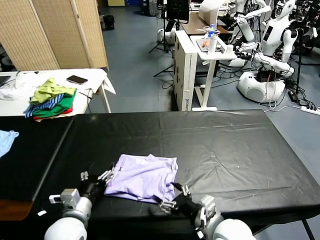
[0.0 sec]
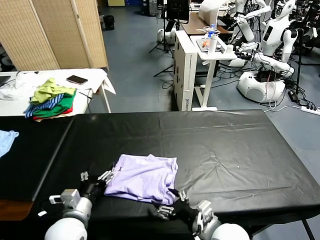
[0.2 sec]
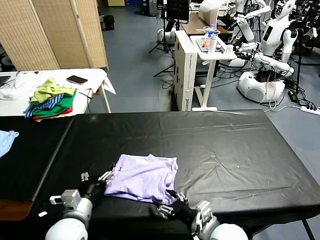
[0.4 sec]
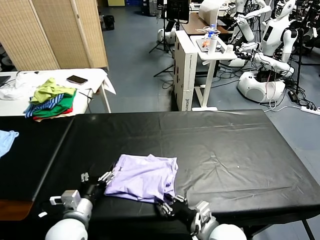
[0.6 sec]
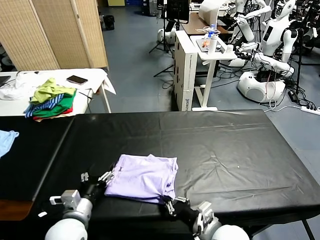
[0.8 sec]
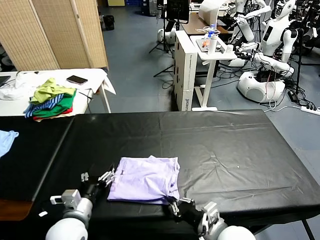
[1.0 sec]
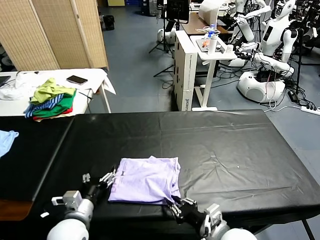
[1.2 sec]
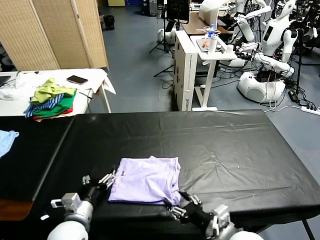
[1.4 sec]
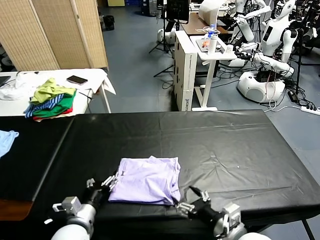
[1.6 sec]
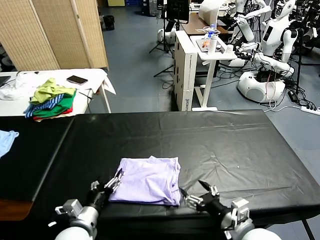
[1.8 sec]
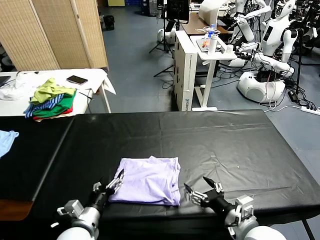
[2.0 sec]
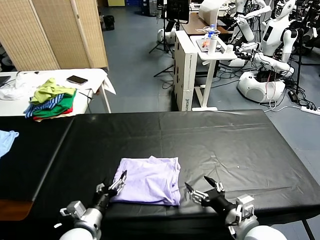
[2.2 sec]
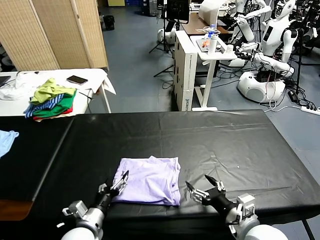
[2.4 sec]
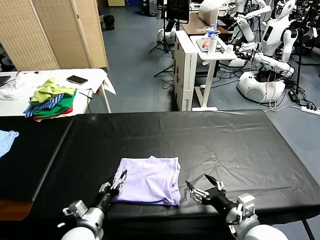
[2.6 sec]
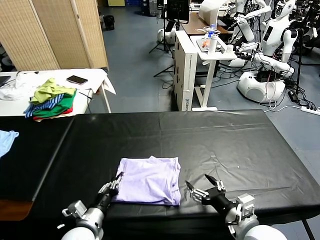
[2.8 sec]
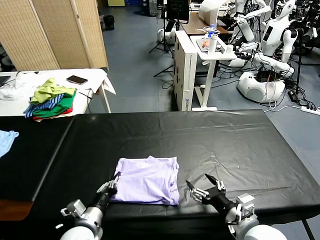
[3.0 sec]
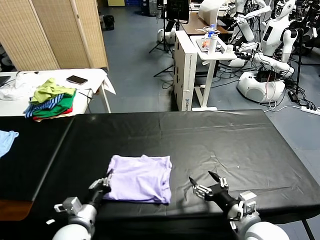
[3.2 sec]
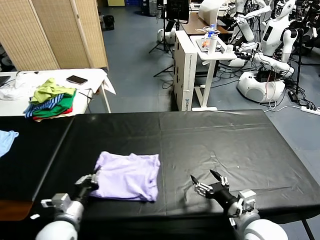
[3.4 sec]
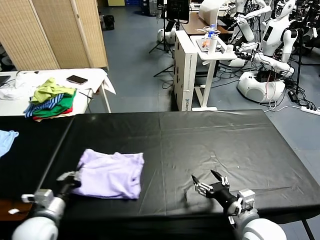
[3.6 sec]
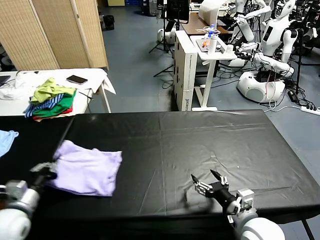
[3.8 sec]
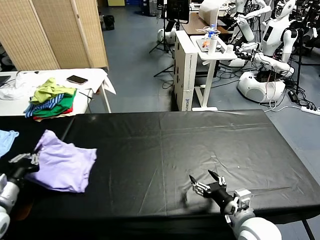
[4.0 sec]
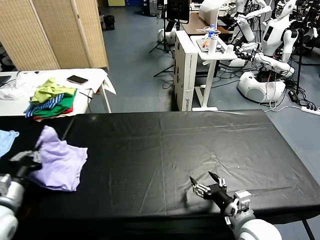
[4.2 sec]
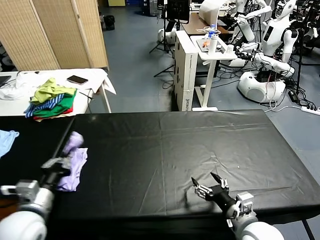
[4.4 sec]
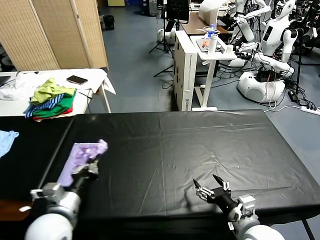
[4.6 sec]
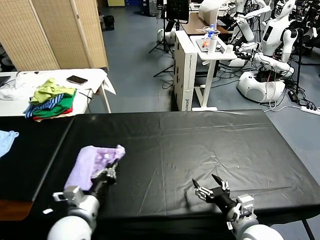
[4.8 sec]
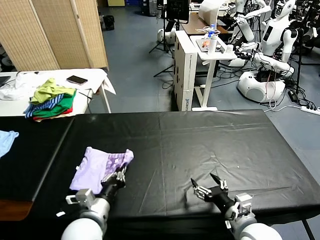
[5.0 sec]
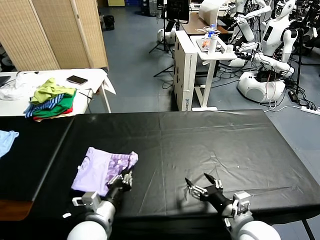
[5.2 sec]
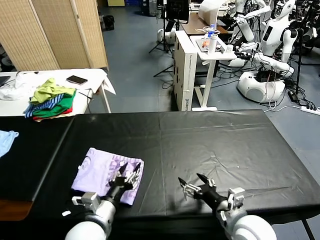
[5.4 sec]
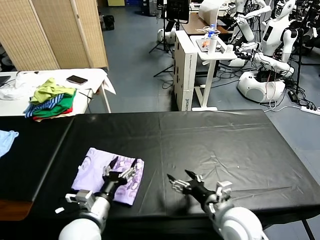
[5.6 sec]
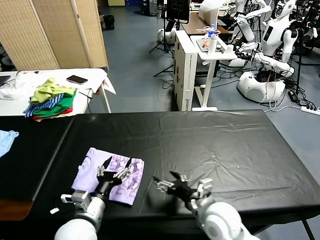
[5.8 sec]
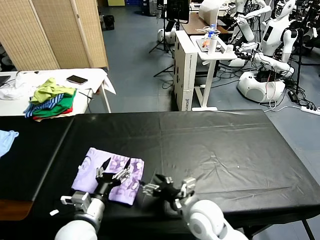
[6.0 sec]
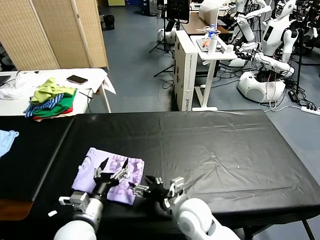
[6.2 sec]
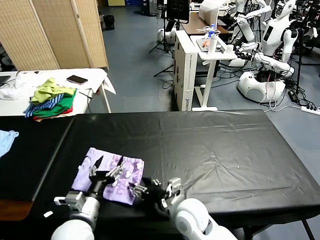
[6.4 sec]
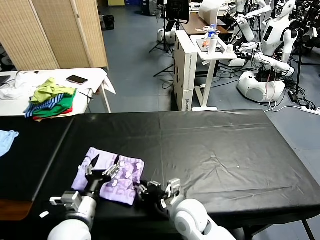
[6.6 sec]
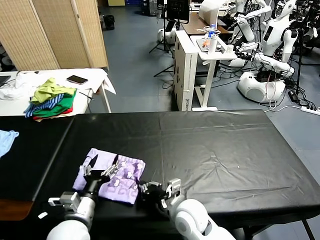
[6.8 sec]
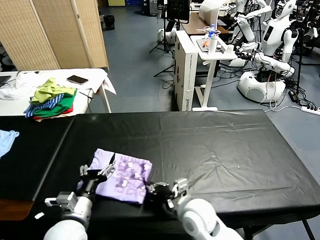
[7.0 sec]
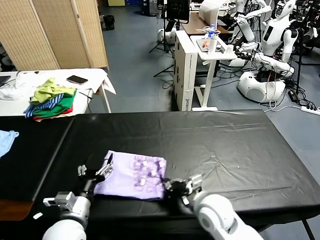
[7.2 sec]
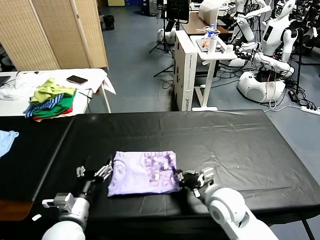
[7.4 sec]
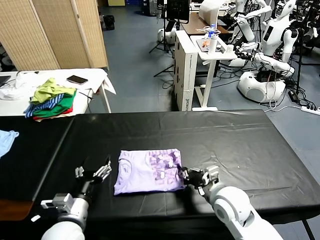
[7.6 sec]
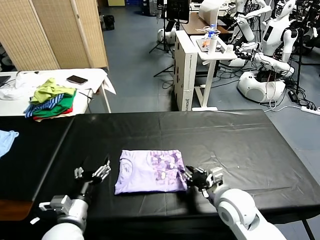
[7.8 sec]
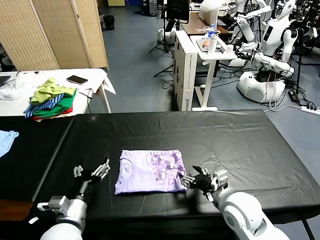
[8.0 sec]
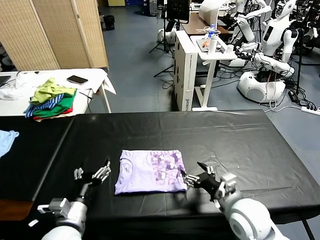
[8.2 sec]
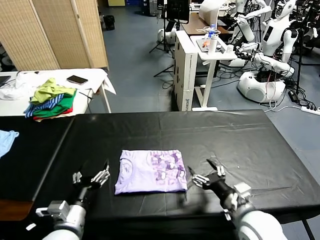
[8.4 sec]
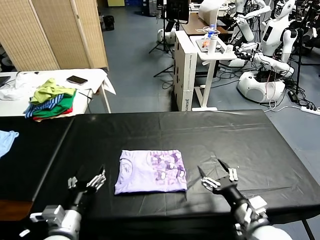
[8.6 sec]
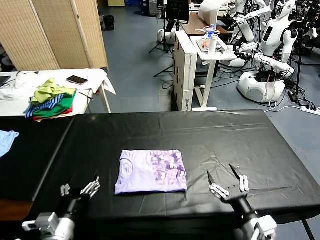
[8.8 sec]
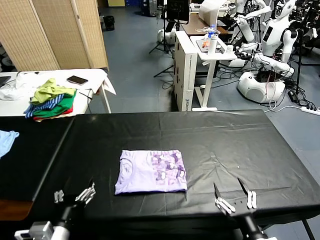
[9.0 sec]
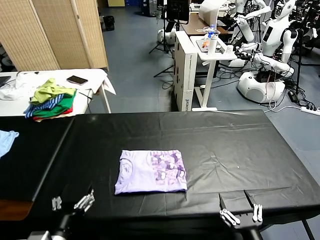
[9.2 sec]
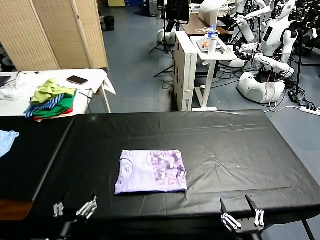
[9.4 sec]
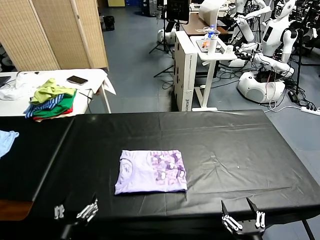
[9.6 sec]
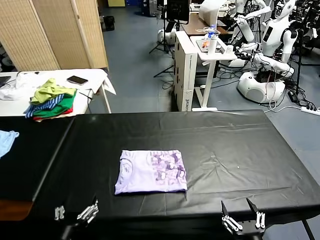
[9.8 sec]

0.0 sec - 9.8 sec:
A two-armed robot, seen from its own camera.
Task of the whole recording: fold and organize the clothes.
Step, 0.0 sec - 5.6 sec: Flip the folded clothes over with left gripper.
Step, 5.8 sec - 8.0 sec: Drag the clothes to the center of the table.
0.0 sec - 1.4 sec: The right gripper closes and opens again.
1.4 sec - 2.8 sec: The left gripper closes up.
2.8 sec - 4.2 sec: The left gripper heads upward and to the left, covering roughly 25 cm.
4.2 sec - 5.6 sec: The left gripper moves to the right and downward, approximately 20 cm, and opens its fingers.
5.6 sec - 7.0 sec: The right gripper moves to the left, about 10 cm, and closes.
7.0 sec - 8.4 sec: The right gripper shifts approximately 15 cm to the right and upward, and opens its fingers.
8.4 sec - 9.8 sec: The left gripper is displaced backward by about 10 cm; the right gripper travels backward by approximately 15 cm.

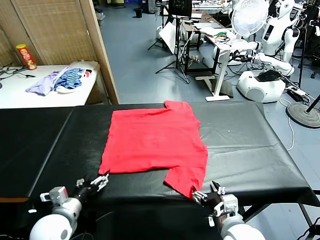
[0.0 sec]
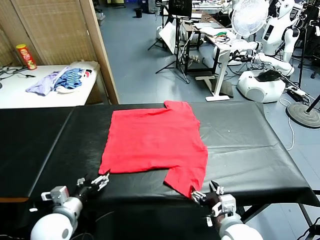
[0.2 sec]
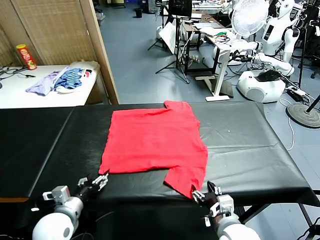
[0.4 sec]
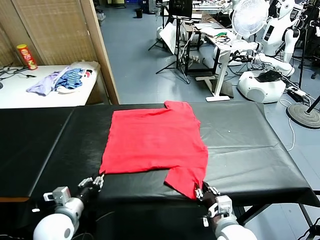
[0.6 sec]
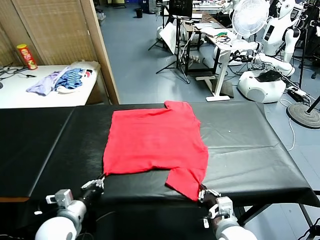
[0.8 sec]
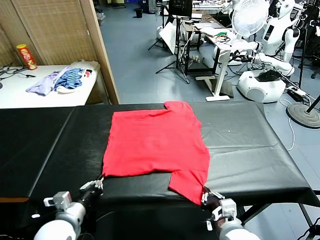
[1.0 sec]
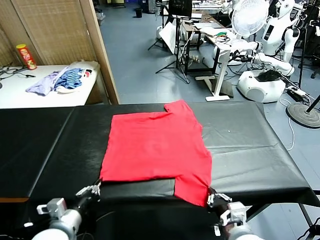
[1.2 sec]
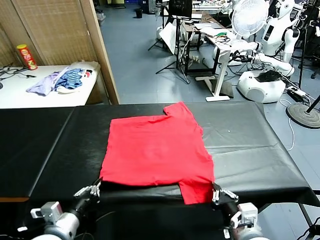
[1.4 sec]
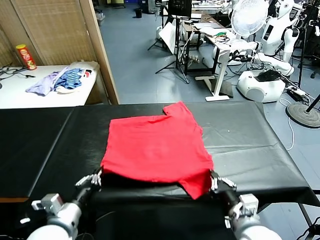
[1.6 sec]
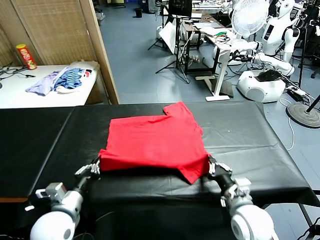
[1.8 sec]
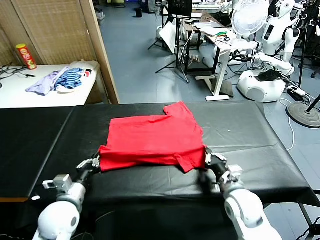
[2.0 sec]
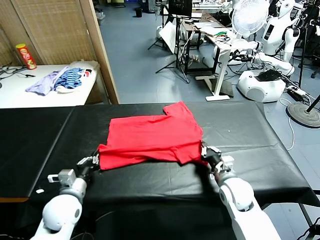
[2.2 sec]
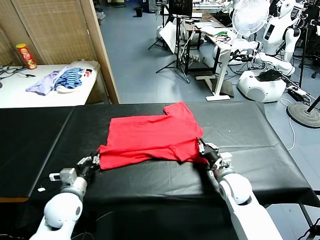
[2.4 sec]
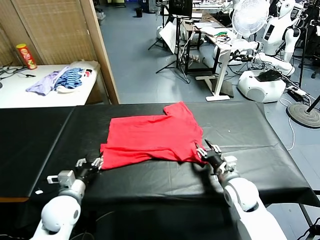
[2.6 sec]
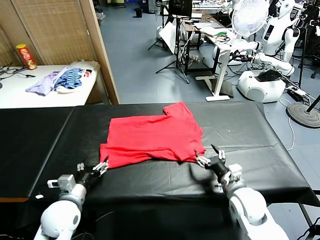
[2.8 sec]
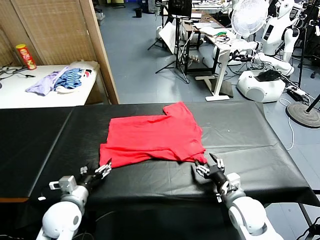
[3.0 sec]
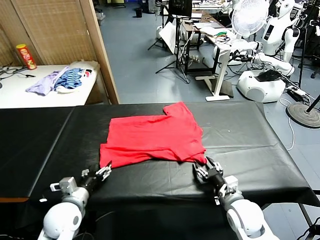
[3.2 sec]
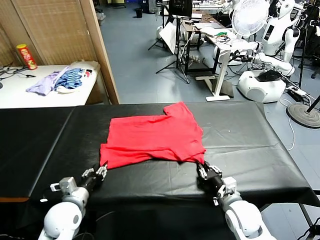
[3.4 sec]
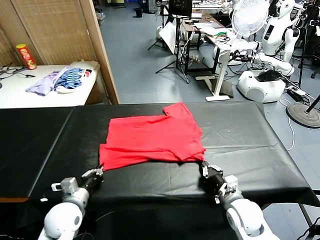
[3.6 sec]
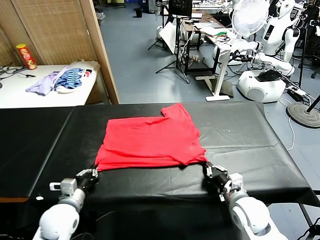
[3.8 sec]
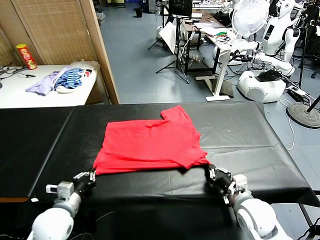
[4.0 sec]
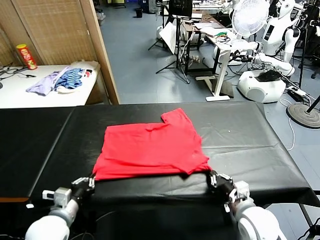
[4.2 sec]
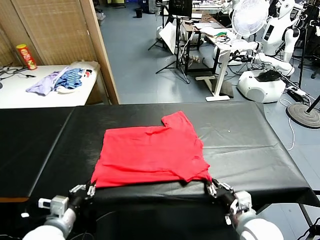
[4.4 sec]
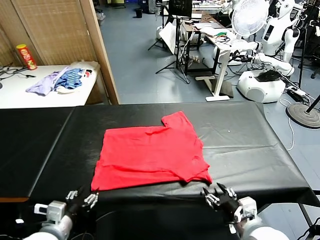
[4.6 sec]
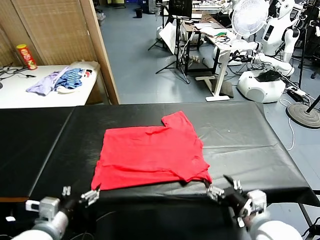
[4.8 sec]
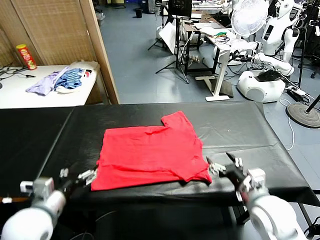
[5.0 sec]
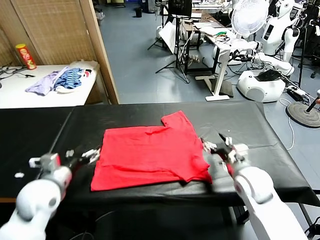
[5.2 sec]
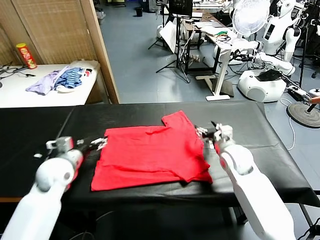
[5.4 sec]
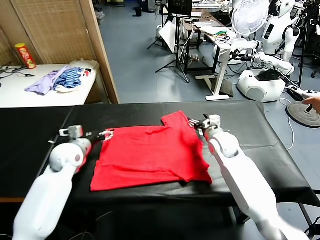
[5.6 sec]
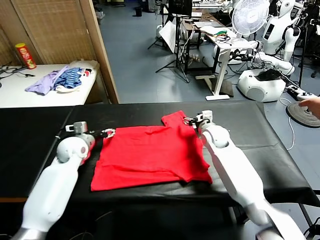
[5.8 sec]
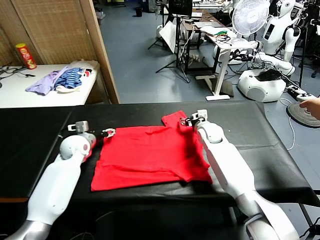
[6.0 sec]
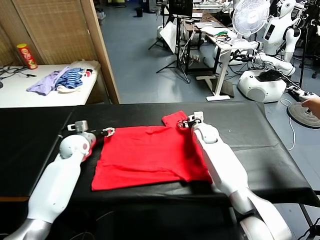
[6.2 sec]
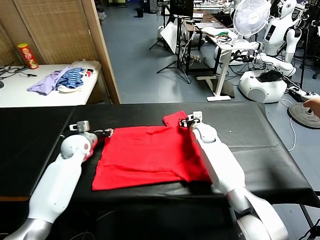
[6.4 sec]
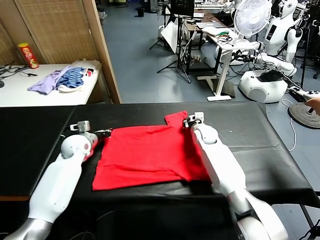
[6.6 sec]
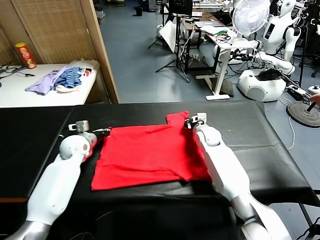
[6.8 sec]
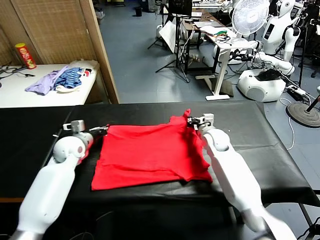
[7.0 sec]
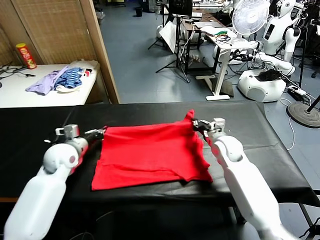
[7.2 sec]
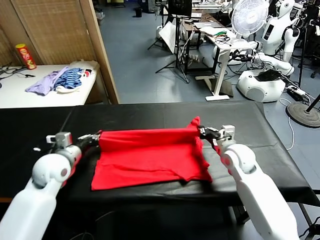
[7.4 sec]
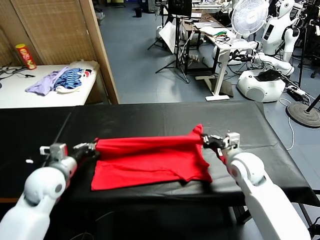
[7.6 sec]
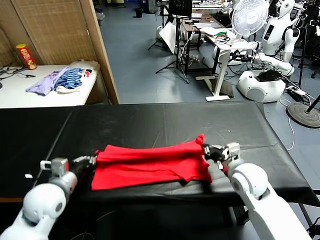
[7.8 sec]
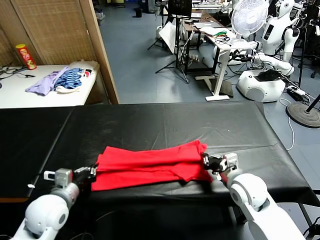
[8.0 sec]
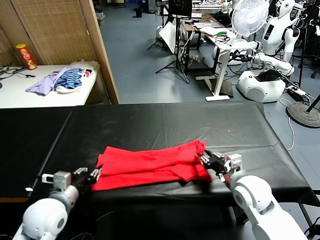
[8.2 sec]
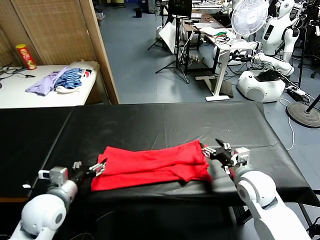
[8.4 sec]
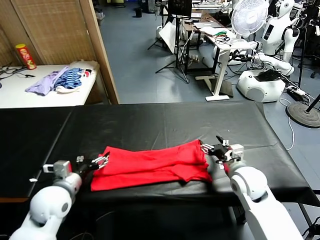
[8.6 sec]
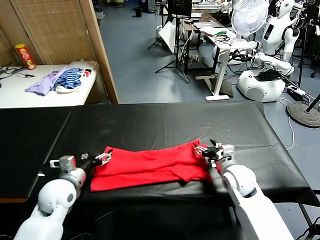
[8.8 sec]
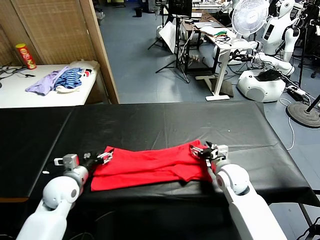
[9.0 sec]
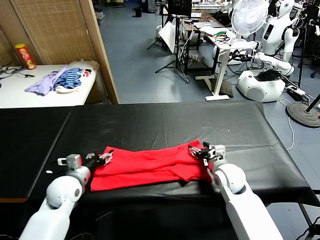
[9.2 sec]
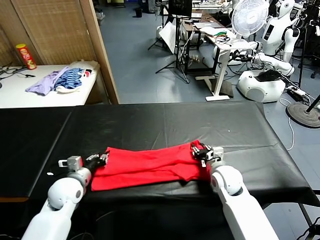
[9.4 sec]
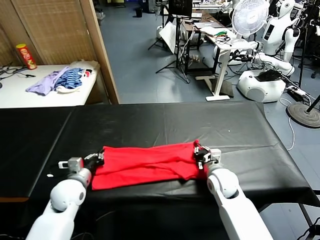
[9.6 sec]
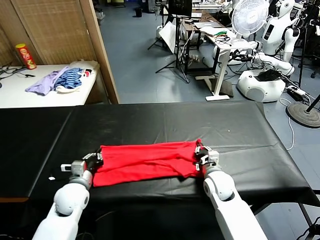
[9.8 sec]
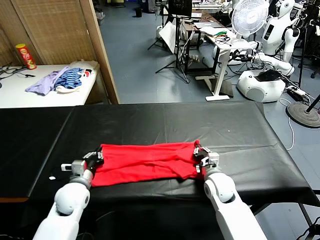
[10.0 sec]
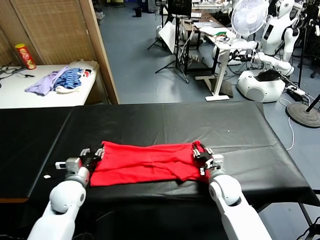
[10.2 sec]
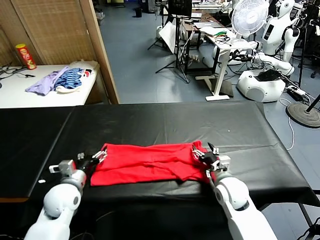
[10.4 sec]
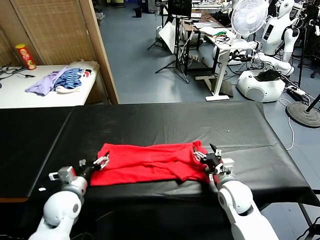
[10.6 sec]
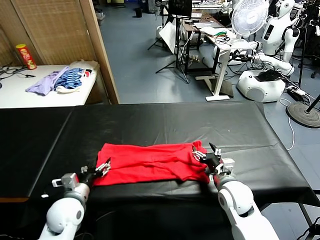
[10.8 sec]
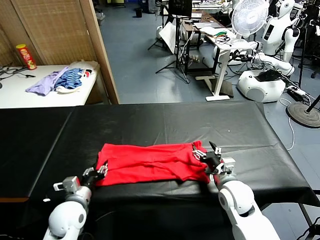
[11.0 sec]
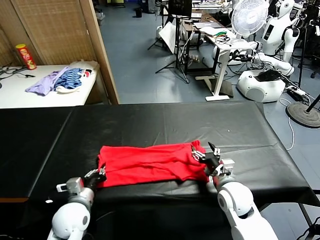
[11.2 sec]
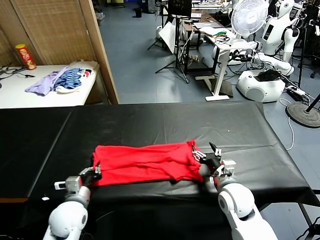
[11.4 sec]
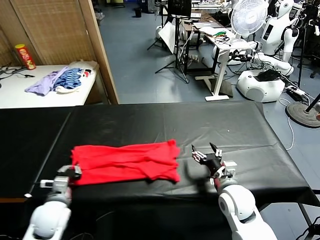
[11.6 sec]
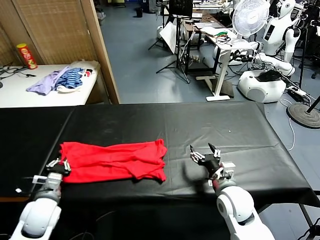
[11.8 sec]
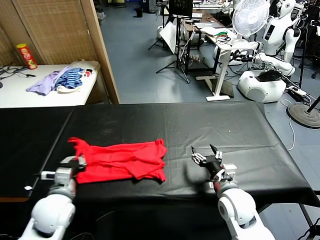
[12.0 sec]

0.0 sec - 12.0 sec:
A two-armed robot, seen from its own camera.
Task of the whole recording: fold and organize the clothes.
Step, 0.0 sec - 0.8 sec: use both grippers simultaneously to clamp the lower edge of the clothing fabric.
Step, 1.0 sec - 2.4 sec: use both grippers to drag the lower edge of the fabric forward and fold it over the upper edge.
Step, 2.6 sec - 4.4 sec: Drag the clothes downward with both gripper.
Step, 4.6 sec - 6.6 sec: use both grippers simultaneously to clamp the upper edge of the clothing fabric.
Step, 6.8 sec - 8.0 sec: use both grippers to drag the upper edge of the fabric backward and fold it over the lower edge.
Step, 8.4 sec - 11.2 sec: use the left gripper to clamp the left edge of the fabric.
1.6 sec - 3.0 sec: The left gripper heads forward and downward, covering approximately 10 cm, and opens its fingers. The right gripper shifts approximately 5 cm downward, travels forward and back again, about 10 cm each way, and opens.
3.0 sec - 4.4 sec: The left gripper goes roughly 10 cm backward, and closes, while the right gripper goes roughly 10 cm backward and upward, and closes and opens again.
4.4 sec - 6.0 sec: The two grippers go roughly 35 cm forward. The left gripper opens.
6.0 sec - 7.6 sec: Both grippers move backward, about 20 cm. The left gripper closes up; the right gripper closes up.
7.6 sec - 9.0 sec: Both grippers move downward, about 5 cm. The right gripper opens up; the left gripper moves some 5 cm backward and comes back, and opens.
9.0 sec - 10.4 sec: The right gripper heads backward, covering approximately 5 cm, and closes and opens again. The left gripper closes, then opens again.
10.4 sec - 12.0 sec: The left gripper moves left and right over about 10 cm, changing direction 2 times, and closes, while the right gripper ends up roughly 5 cm from where it was.
